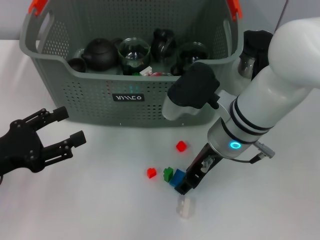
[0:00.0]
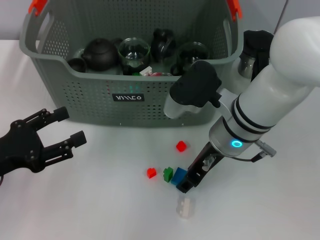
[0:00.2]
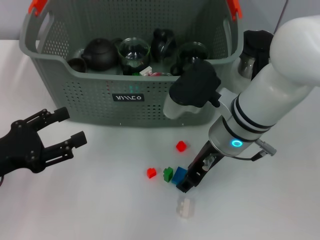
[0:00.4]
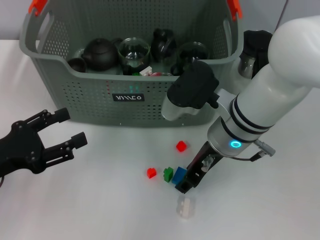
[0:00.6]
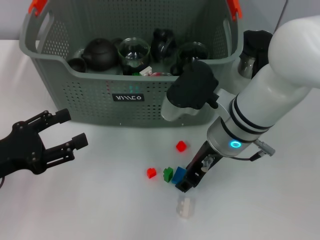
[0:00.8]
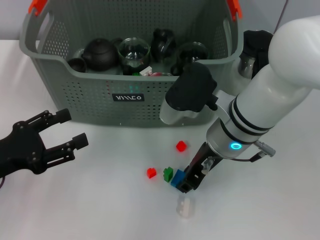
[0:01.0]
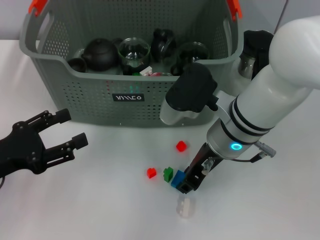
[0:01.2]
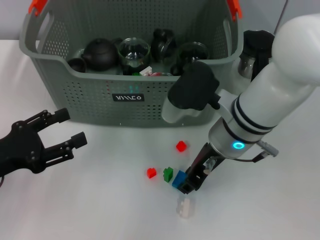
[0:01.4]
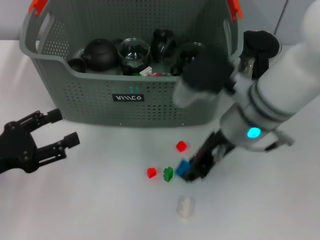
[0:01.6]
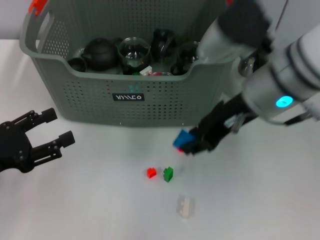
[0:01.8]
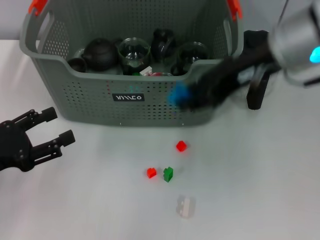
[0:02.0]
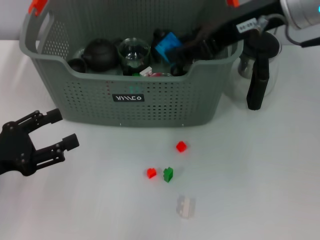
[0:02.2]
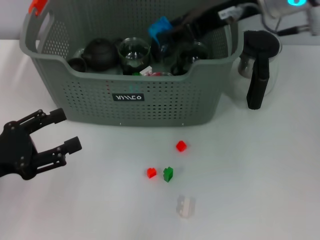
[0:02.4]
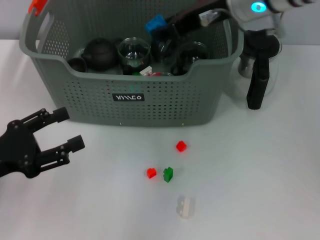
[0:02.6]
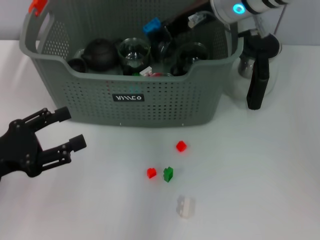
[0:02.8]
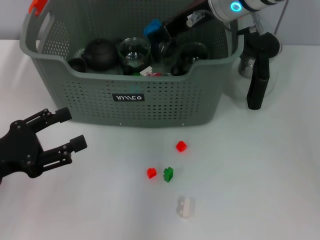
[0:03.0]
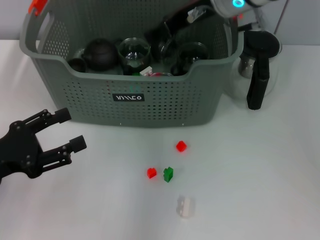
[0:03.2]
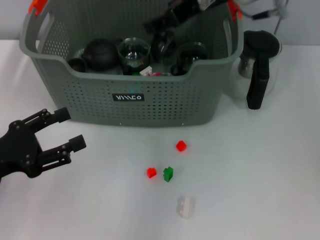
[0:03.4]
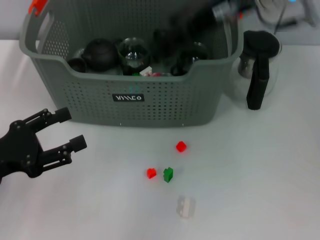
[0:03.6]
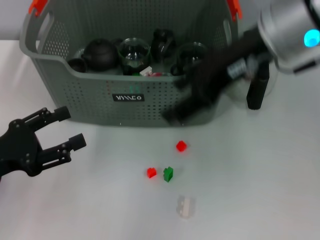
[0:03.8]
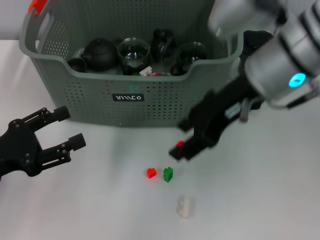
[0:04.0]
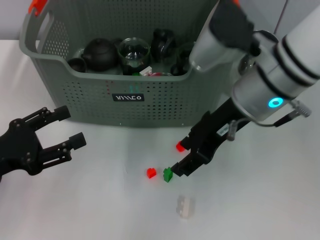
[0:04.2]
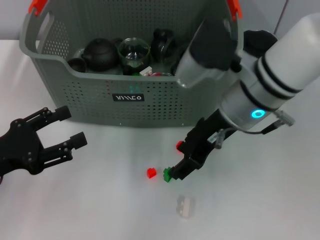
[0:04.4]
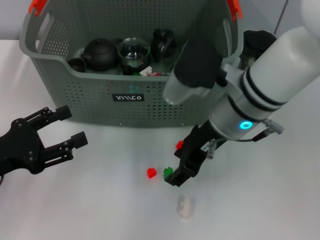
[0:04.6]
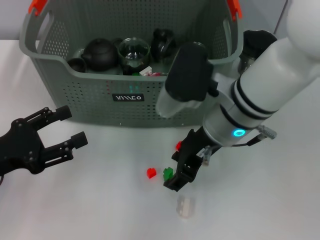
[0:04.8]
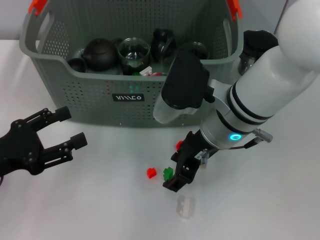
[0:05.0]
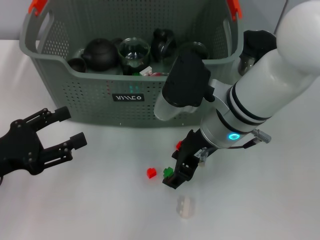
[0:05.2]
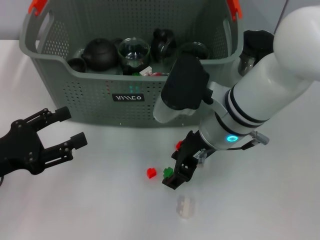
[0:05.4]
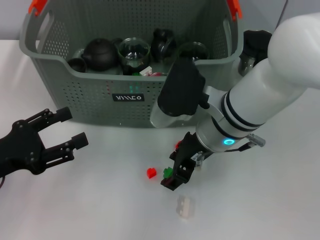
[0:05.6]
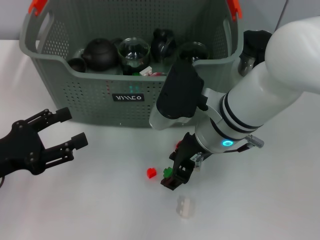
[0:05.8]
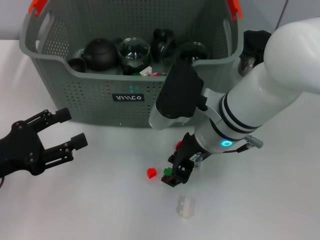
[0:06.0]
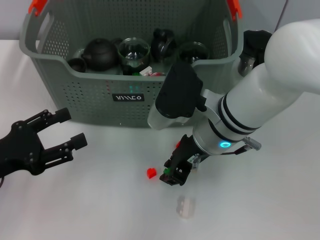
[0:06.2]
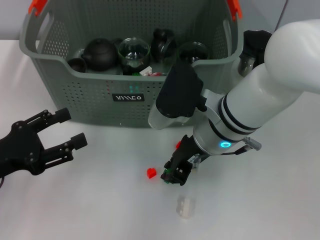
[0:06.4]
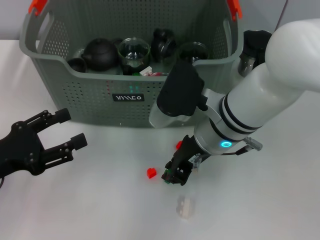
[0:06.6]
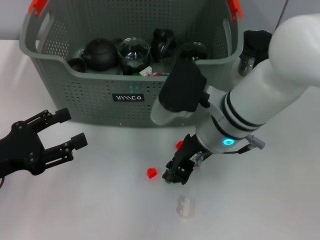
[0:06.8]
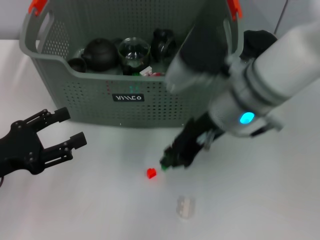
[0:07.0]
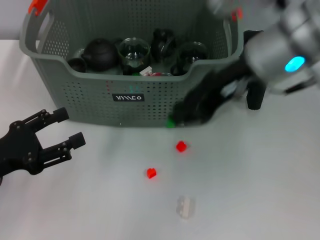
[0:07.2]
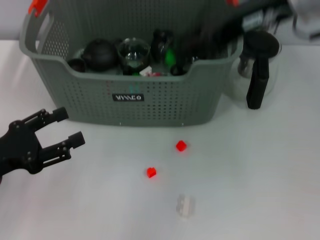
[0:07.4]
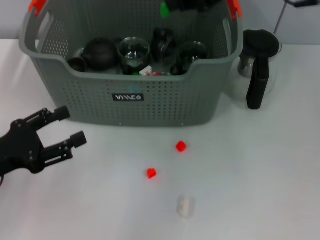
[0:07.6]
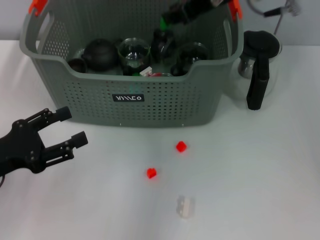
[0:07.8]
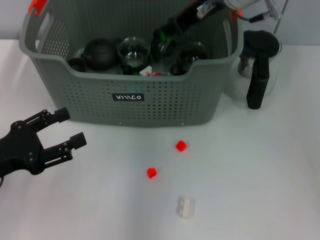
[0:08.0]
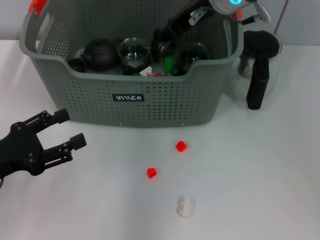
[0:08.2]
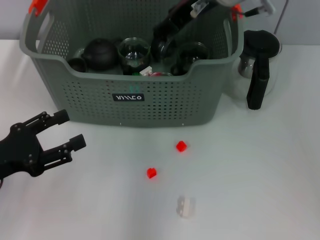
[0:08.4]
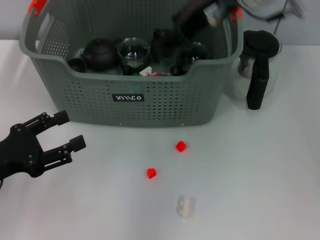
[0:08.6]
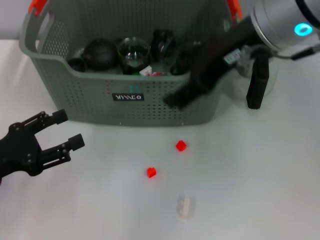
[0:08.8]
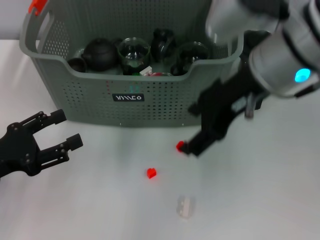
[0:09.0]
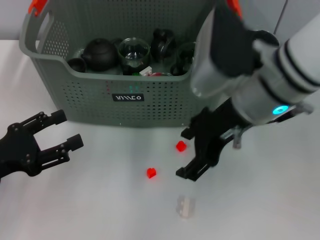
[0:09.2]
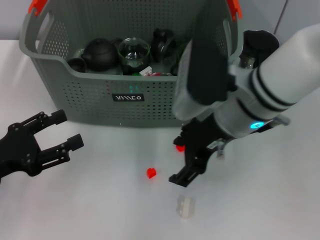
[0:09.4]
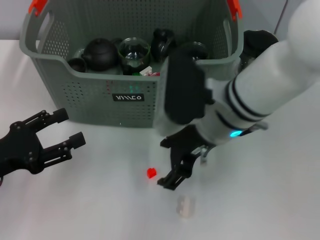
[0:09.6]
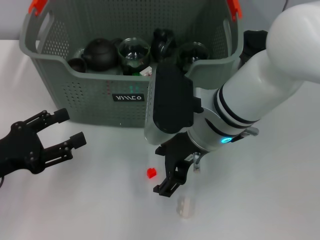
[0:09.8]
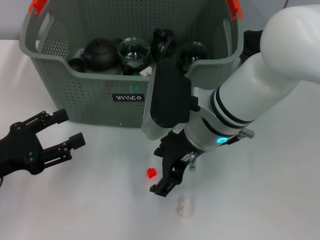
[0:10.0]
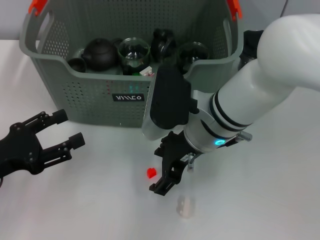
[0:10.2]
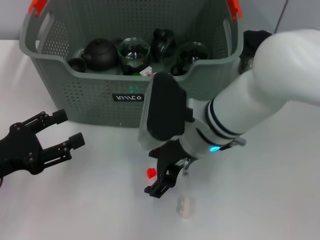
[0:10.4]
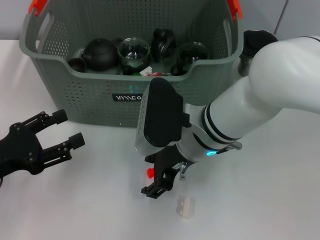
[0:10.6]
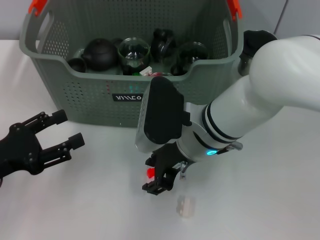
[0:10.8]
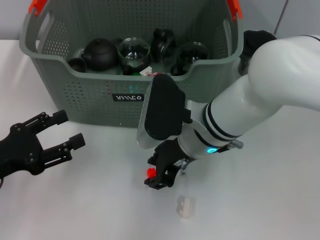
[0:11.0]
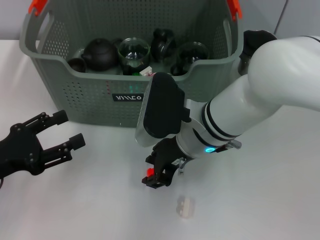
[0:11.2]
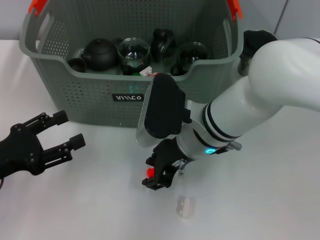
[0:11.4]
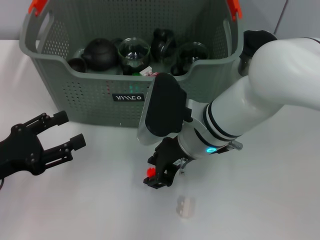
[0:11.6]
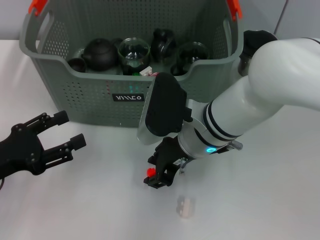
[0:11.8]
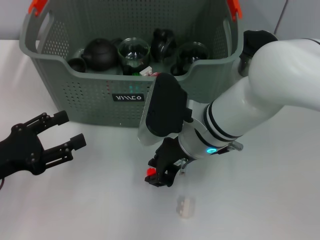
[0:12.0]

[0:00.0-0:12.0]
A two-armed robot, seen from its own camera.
Task of the whole recording: pick up the teacup on the table and place it into the storage bin, pick up the block on the table and place it into the storage bin.
Step, 0:00.6 to 0:03.0: Place the dark blue block in the storage box with right gripper.
Step, 0:03.2 to 0:06.4: Grasp the green block with right gripper.
Step, 0:06.6 to 0:08.2: Place the green block in the storage box with right gripper.
0:00.0 to 0:01.6: The grippers stay close to where they were, moving slightly.
0:01.6 to 0:03.0: The right gripper moves forward and upward, some 15 cm.
0:03.0 to 0:04.4: The right gripper is displaced backward and downward by roughly 10 cm.
0:04.4 to 0:06.0: The right gripper is displaced downward by some 5 cm.
0:06.0 to 0:07.6: The right gripper shifts approximately 20 cm upward, and closes its fingers.
0:07.6 to 0:09.0: The right gripper shifts about 5 cm downward, and opens.
0:09.0 to 0:10.4: The right gripper moves downward and to the left, roughly 15 cm.
0:10.4 to 0:12.0: The right gripper closes.

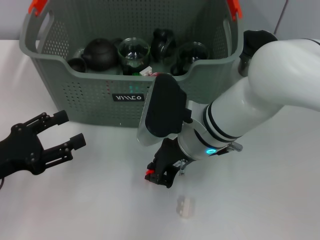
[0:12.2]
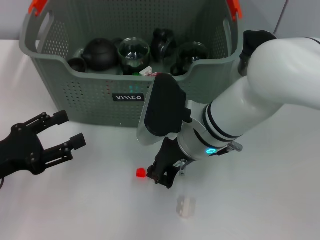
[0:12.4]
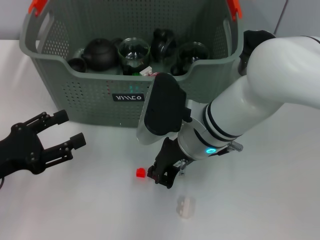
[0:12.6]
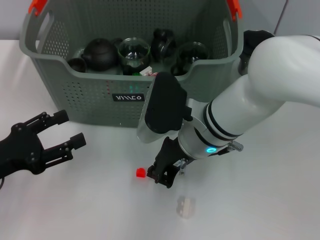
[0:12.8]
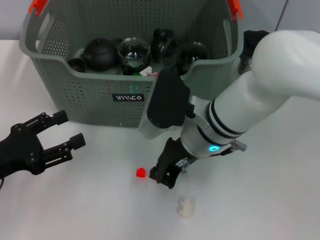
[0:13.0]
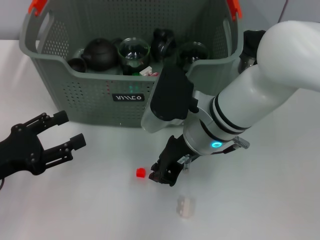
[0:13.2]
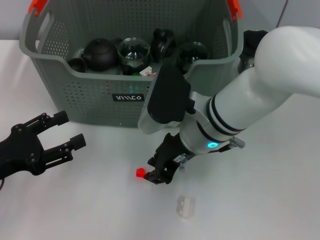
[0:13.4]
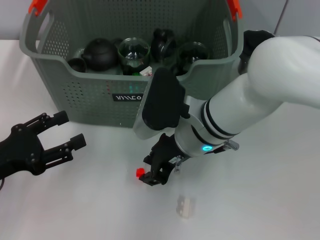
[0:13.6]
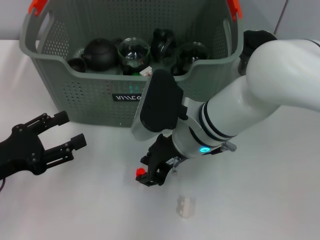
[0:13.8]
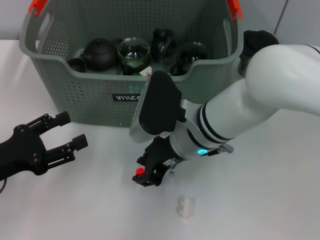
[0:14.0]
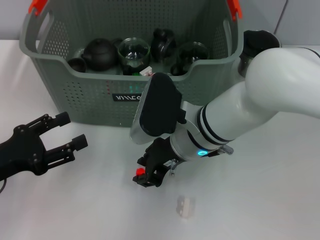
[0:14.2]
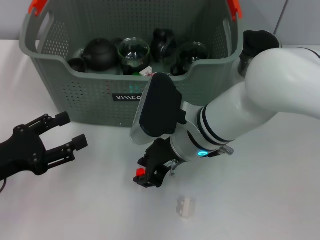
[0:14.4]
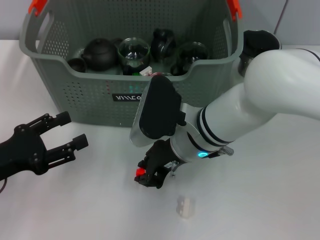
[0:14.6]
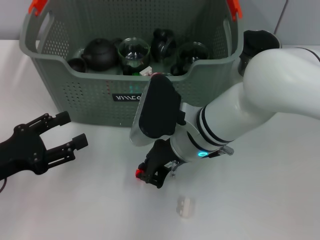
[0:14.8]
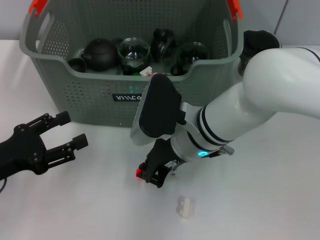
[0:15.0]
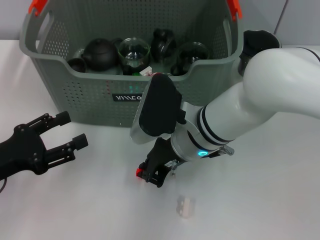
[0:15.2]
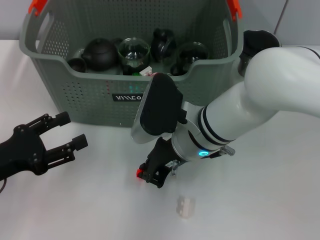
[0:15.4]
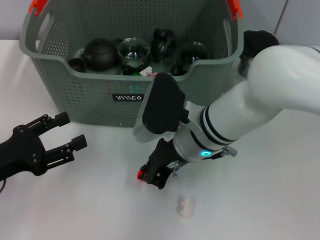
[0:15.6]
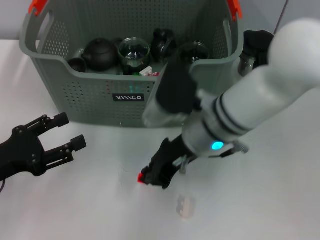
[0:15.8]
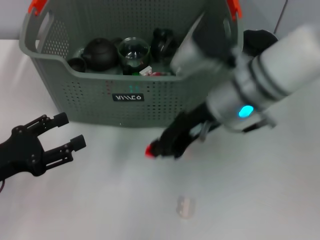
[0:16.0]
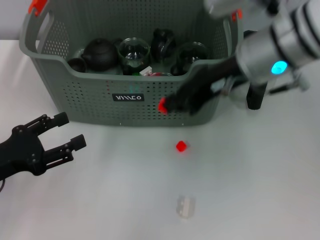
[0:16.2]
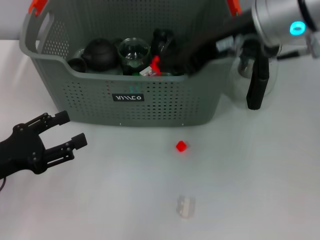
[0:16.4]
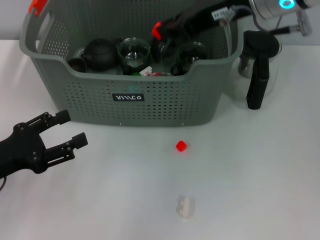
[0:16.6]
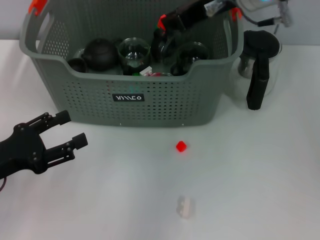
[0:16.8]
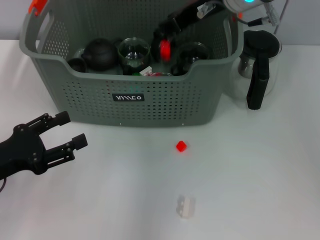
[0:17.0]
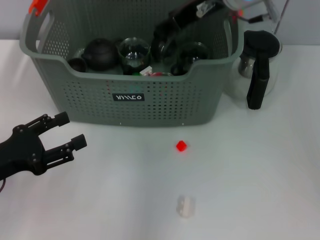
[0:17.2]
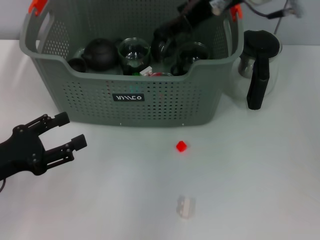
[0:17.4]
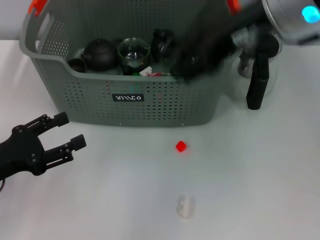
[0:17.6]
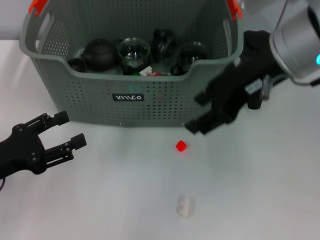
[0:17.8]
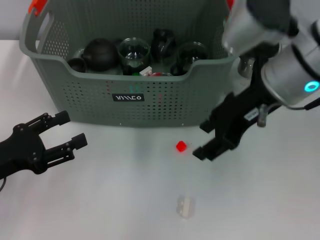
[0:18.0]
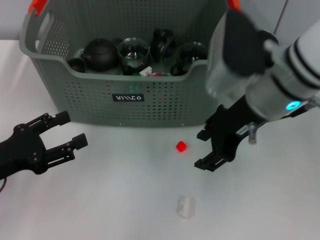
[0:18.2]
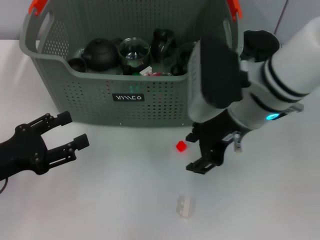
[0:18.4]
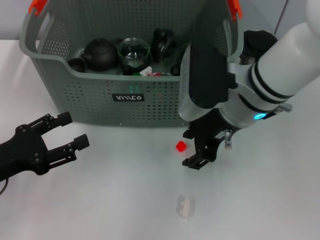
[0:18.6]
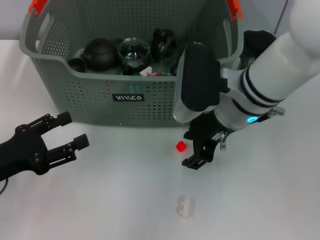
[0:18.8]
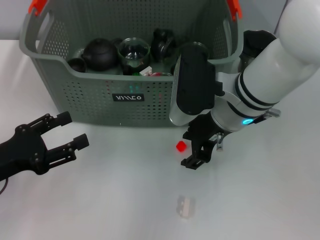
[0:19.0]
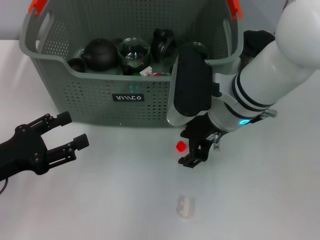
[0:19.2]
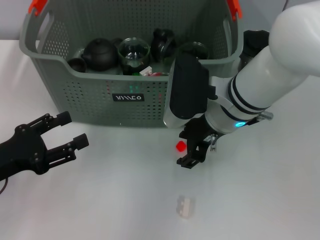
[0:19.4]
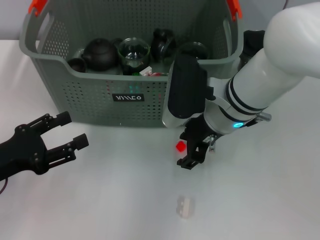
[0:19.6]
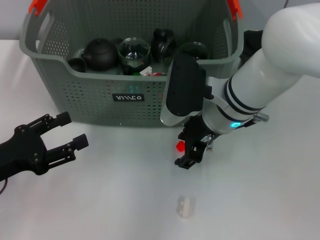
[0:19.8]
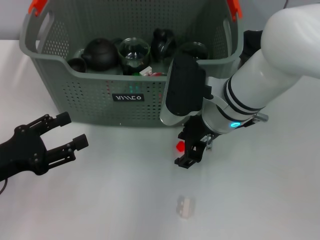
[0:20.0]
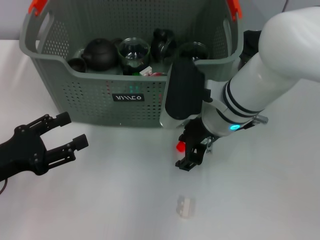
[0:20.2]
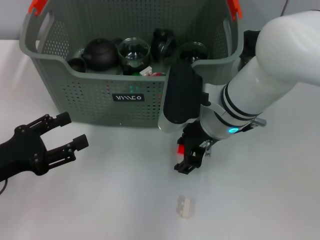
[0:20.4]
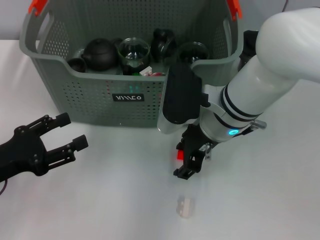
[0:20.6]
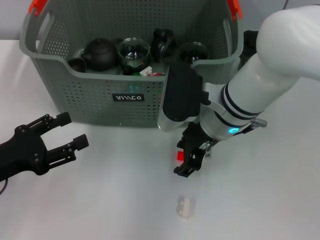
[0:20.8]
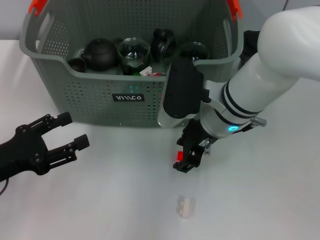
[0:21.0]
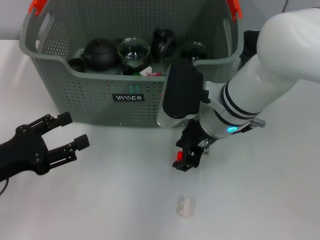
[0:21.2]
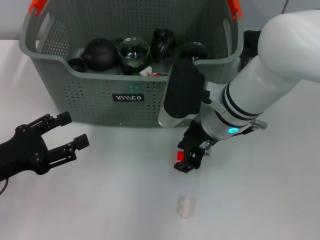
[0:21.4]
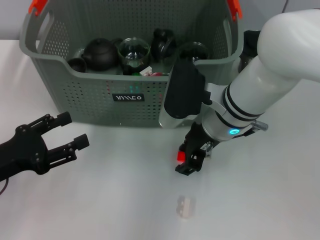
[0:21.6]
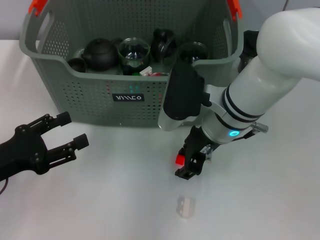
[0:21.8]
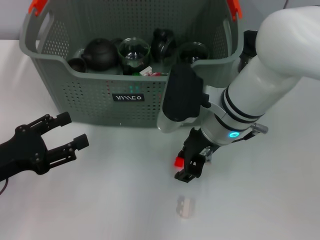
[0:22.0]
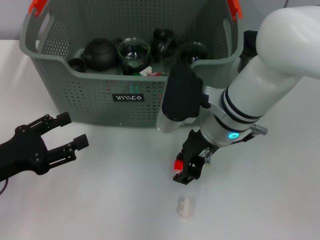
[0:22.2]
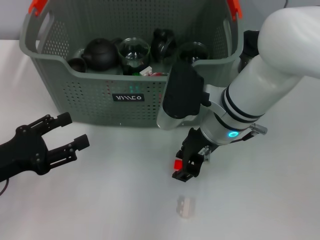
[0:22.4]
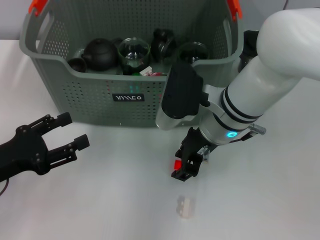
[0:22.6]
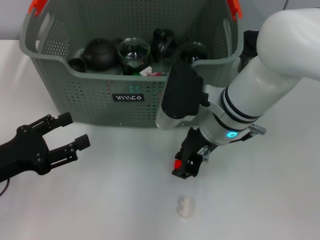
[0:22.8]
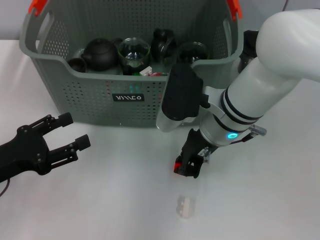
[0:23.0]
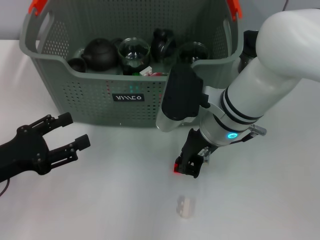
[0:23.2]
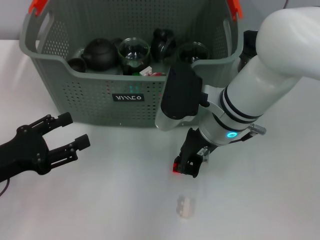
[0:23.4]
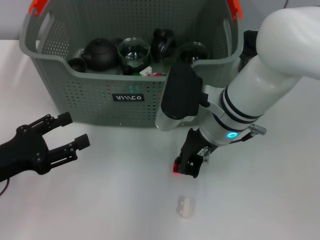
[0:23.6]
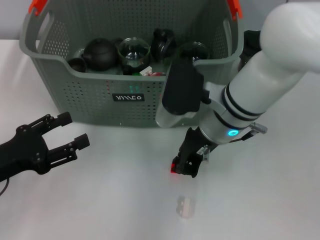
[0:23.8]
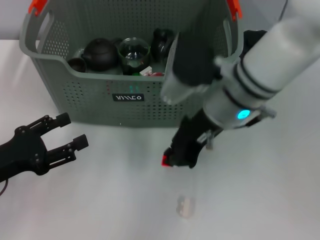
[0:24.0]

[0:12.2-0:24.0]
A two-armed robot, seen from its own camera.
Task of the whole recording: pick up the teacup on the table and place it into the storage bin, pick up the block on the table and place it into the storage bin.
Step, 0:12.2 to 0:14.8: Grasp the orange block with right gripper.
Step, 0:15.2 to 0:17.0: Place the orange block in the storage box with right gripper.
Step, 0:17.2 to 0:23.0: Grasp the orange block with right gripper.
0:12.2 to 0:13.6: The grippers stay close to where they were, moving slightly.
0:13.6 to 0:15.2: Neither gripper changes place.
0:15.2 to 0:16.6: The right gripper heads upward and to the right, covering roughly 20 cm.
0:16.6 to 0:18.2: The right gripper goes some 10 cm downward, and opens its fingers.
0:18.2 to 0:19.6: The right gripper is displaced downward by some 5 cm.
0:19.6 to 0:21.0: Both grippers stay put.
0:21.0 to 0:22.6: The grippers move only a little.
0:22.6 to 0:24.0: The right gripper closes its fingers.
